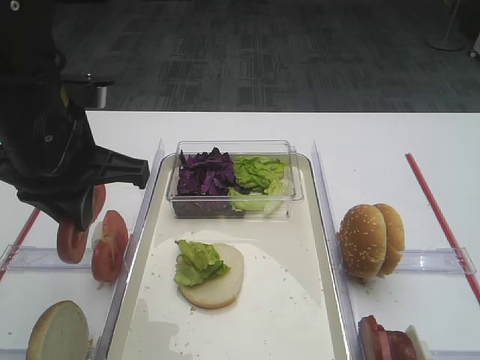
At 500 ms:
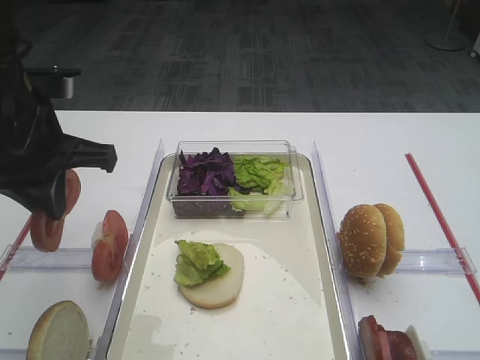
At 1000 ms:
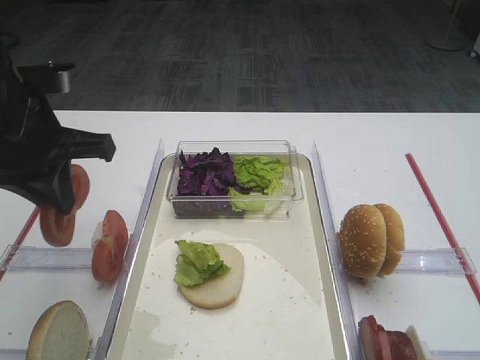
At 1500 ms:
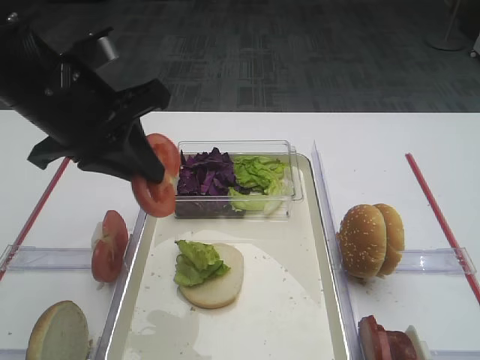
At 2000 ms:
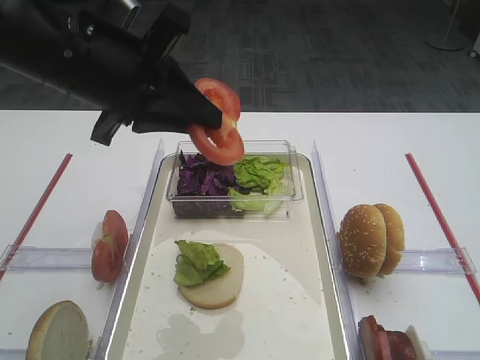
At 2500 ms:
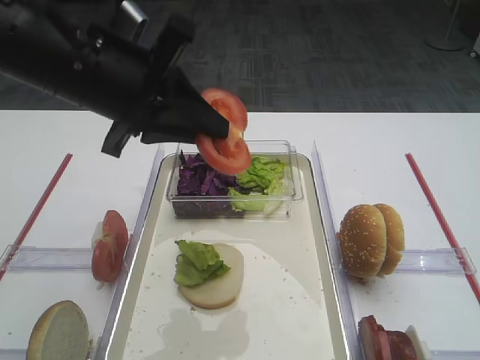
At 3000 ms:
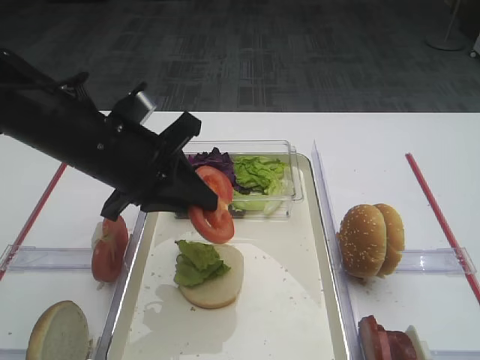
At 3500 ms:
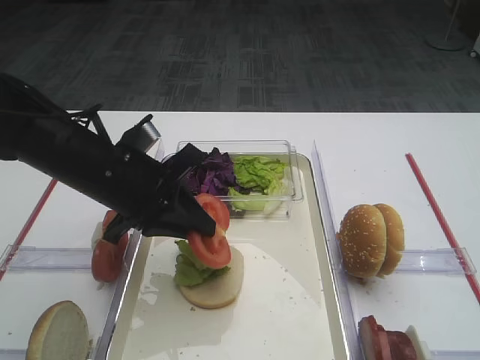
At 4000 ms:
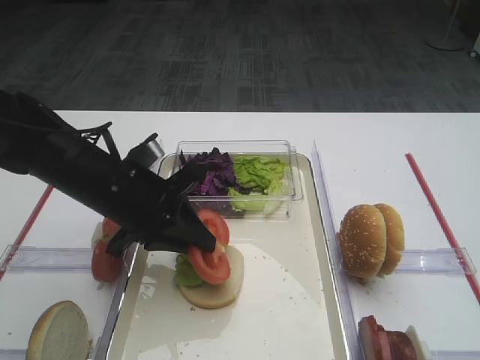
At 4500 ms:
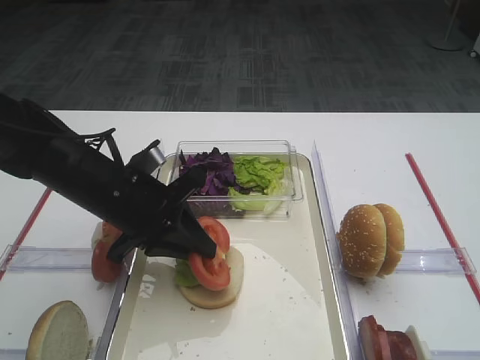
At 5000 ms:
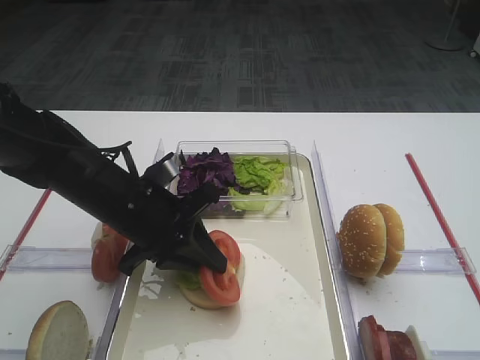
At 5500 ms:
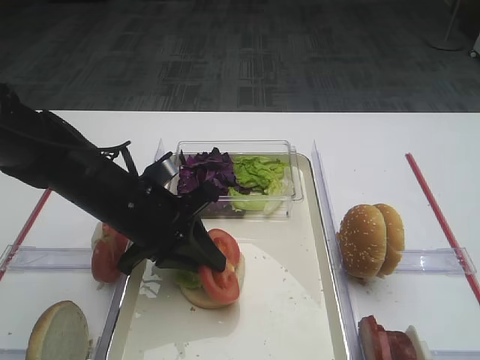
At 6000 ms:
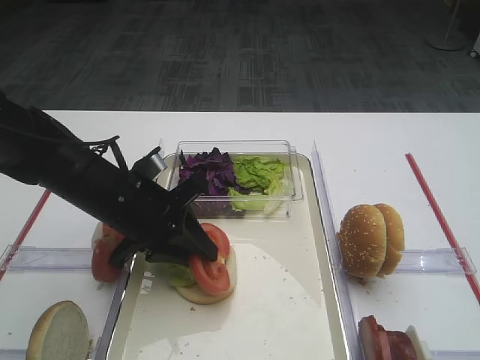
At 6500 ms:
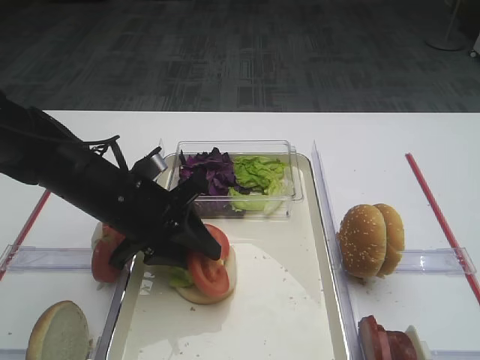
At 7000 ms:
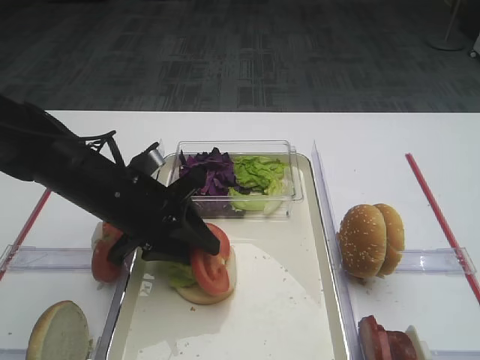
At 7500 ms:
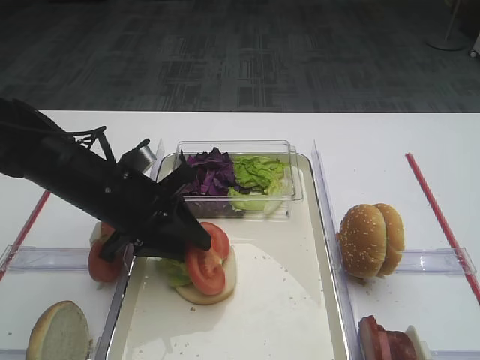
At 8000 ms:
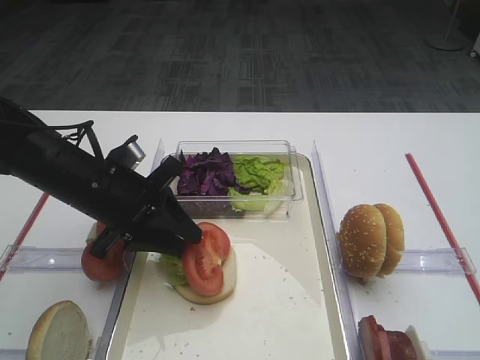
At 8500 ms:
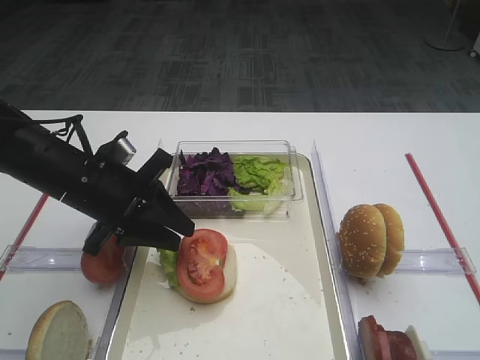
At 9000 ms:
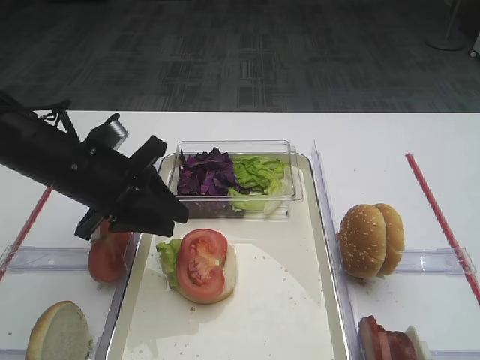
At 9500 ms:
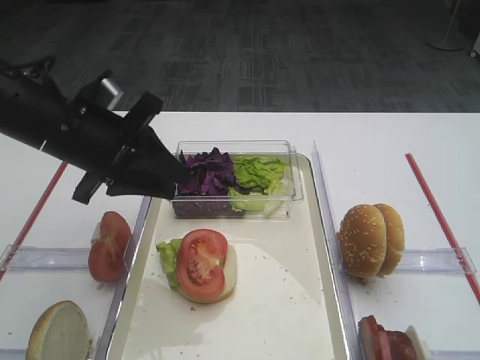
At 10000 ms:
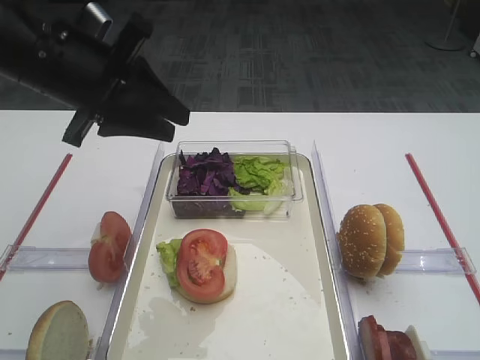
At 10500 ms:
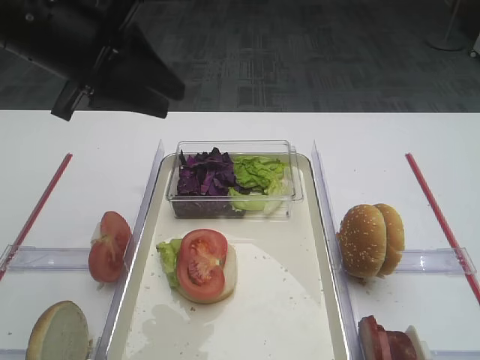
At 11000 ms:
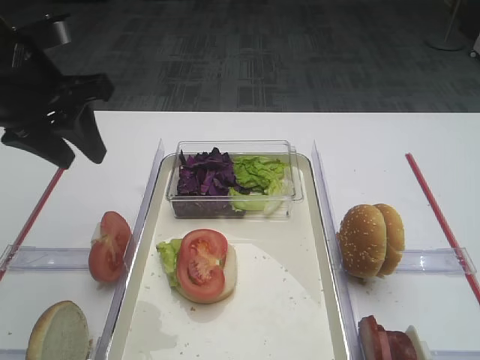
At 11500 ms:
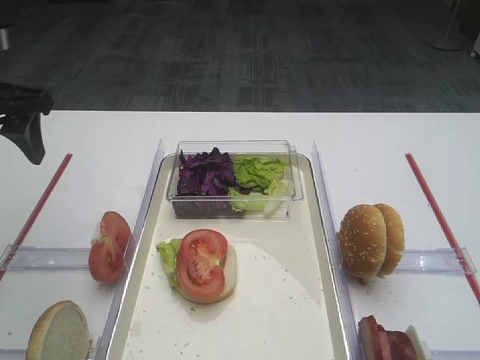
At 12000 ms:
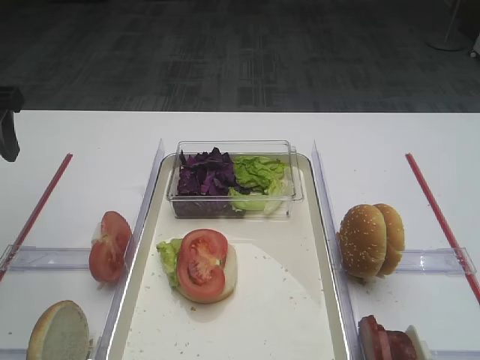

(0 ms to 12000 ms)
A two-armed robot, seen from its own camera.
Step, 0 ms - 8500 ms: Place the tomato slice on the lettuce leaf with the left gripper.
0 ms - 2000 ms: The left gripper changes place by approximately 5 cm.
2000 ms - 4000 ms: The left gripper shifts roughly 15 cm downward.
4000 ms - 8000 ms: The grippers stay close to where they were, moving slightly.
8000 ms - 10000 ms: The left gripper is displaced upward by approximately 15 cm.
10000 ms - 12000 ms: The left gripper goes roughly 15 cm to the left, and opens its fingers.

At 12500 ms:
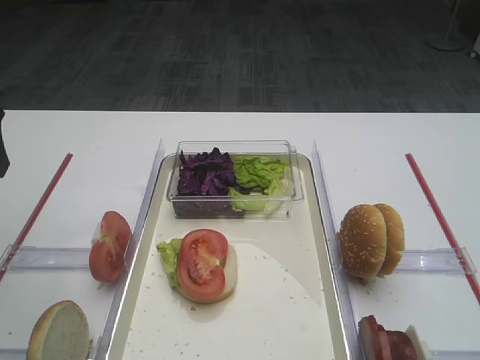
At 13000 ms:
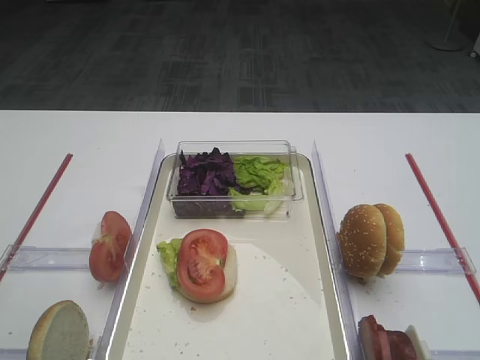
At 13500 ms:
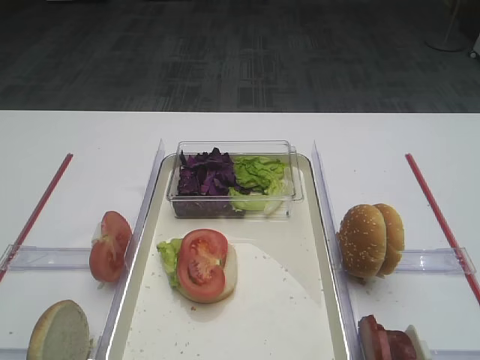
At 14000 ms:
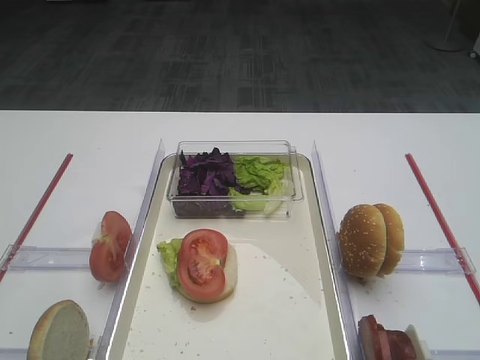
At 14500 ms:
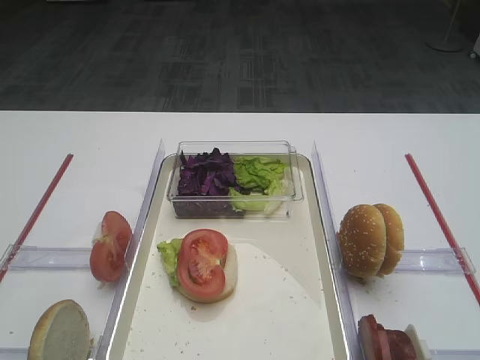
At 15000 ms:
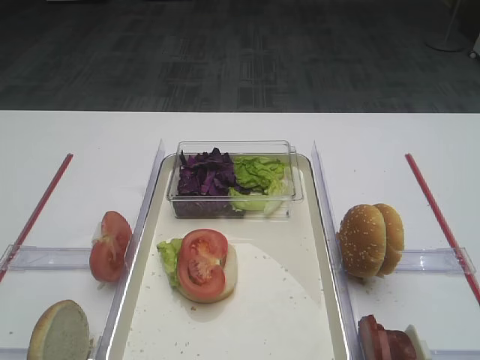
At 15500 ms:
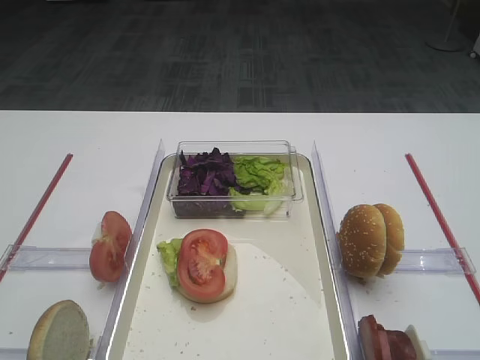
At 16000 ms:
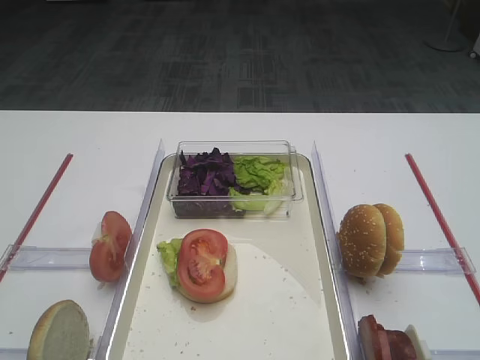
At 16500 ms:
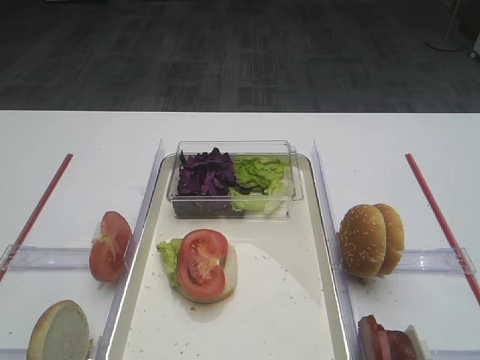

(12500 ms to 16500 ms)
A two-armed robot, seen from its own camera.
12500 ms - 14500 ms: The left gripper moves backward, approximately 30 cm.
14500 ms - 16500 ms: Both grippers stay about where they are.

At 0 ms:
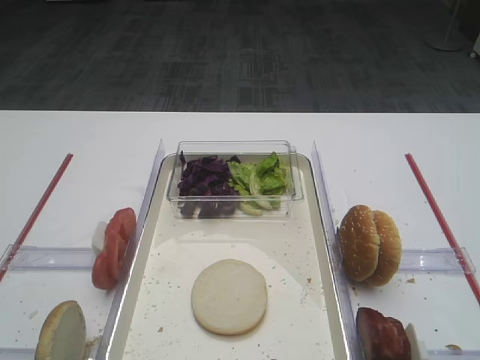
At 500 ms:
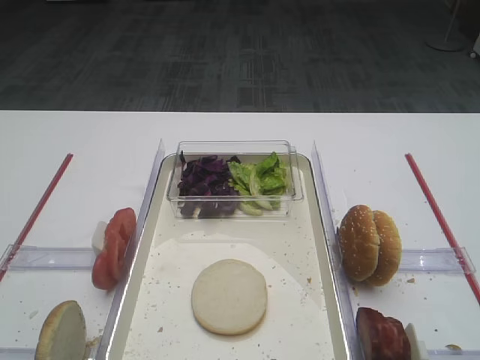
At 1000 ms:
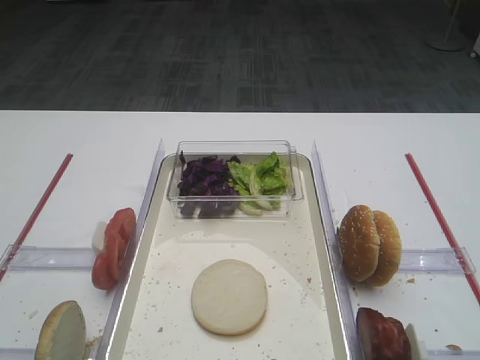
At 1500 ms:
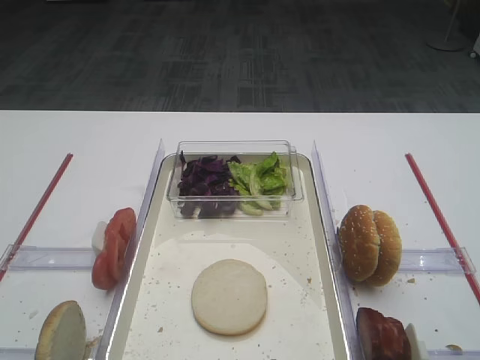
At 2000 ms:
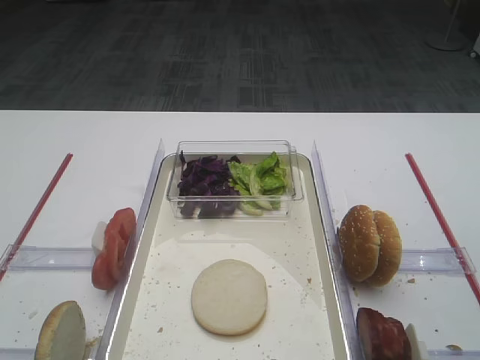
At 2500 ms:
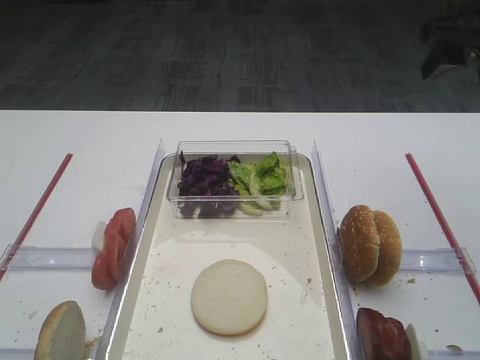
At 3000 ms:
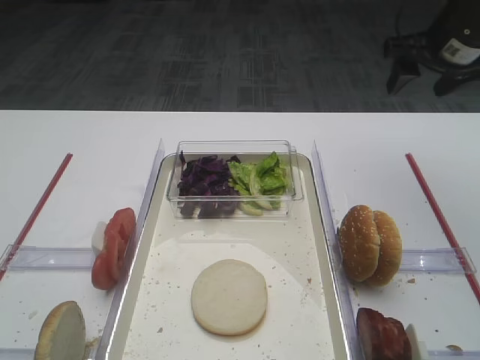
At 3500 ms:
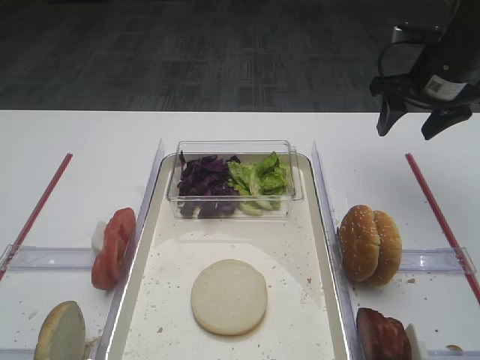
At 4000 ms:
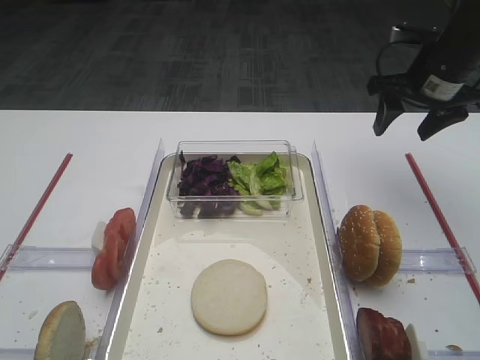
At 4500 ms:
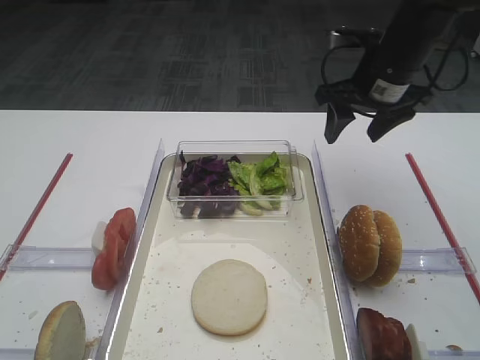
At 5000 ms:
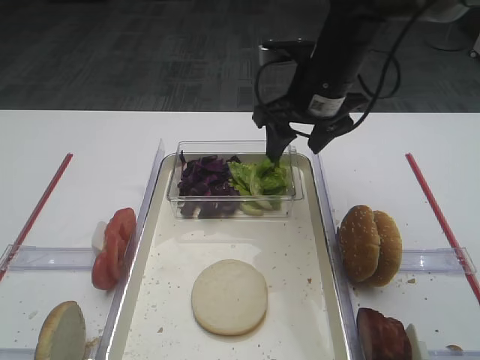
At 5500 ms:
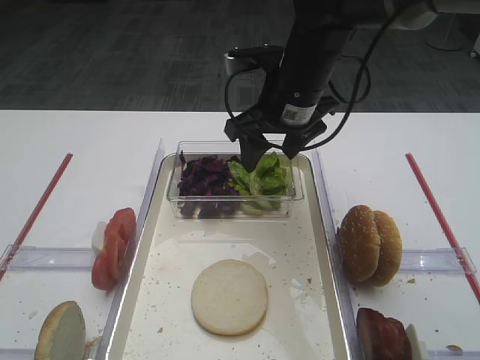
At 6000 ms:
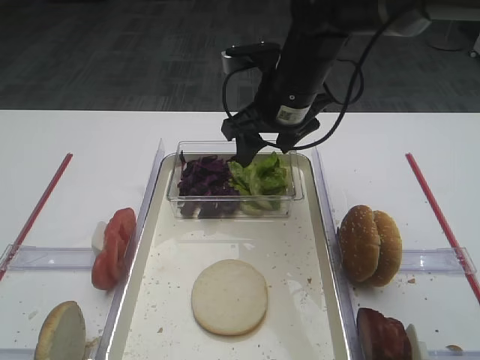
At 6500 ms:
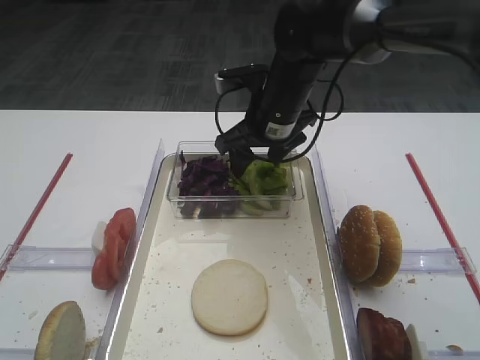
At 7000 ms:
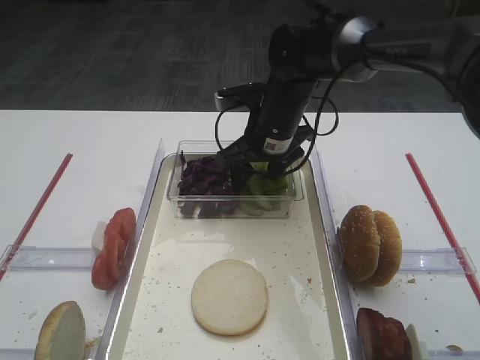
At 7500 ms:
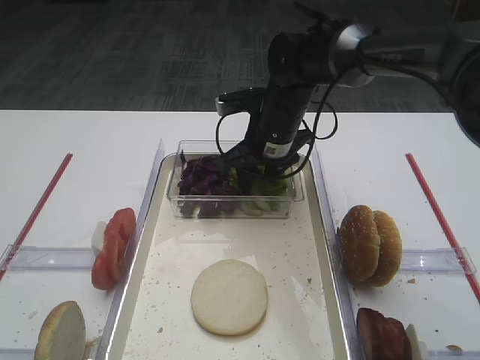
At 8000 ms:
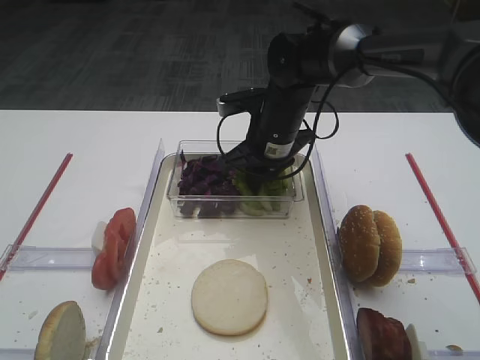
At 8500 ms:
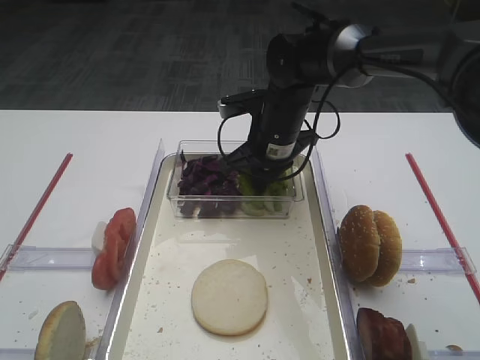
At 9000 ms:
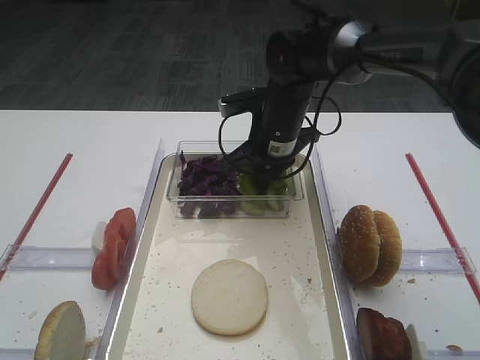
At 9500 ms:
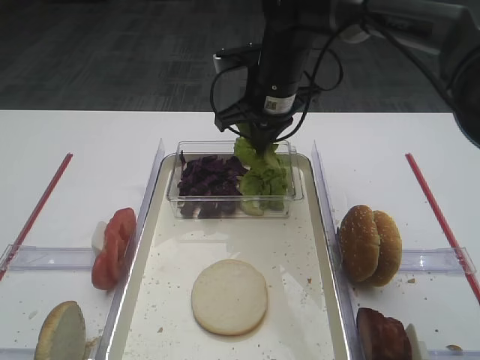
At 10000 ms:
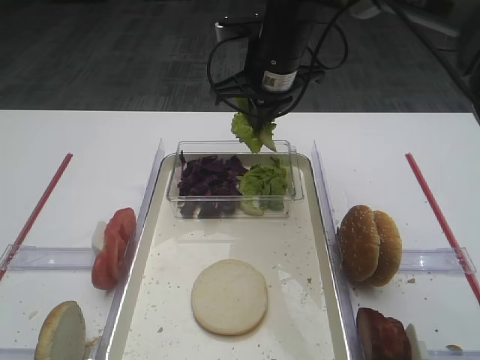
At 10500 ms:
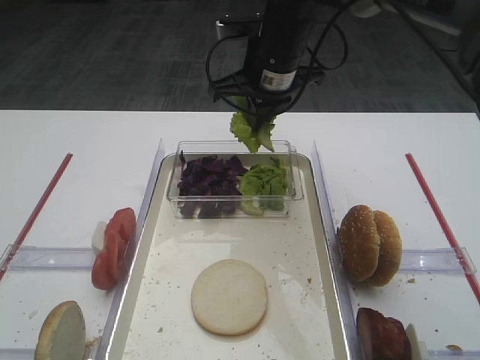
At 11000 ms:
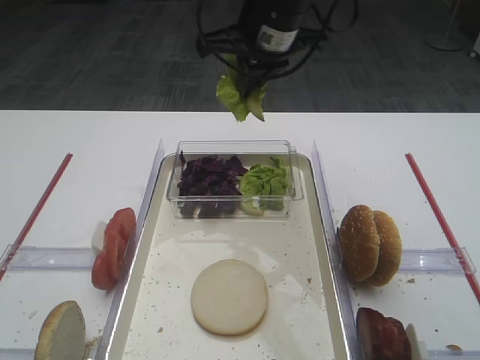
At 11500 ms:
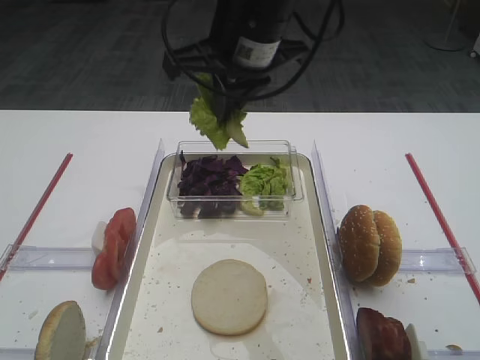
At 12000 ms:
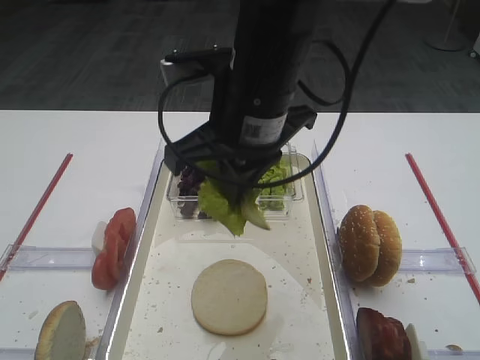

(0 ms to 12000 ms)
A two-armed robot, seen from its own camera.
Step, 0 ms - 9500 ms: Pick up the lettuce leaf with the right gripper.
2000 ms - 4000 ms: The right gripper goes about 25 cm forward and downward.
4000 ms - 6000 ms: The right gripper shifts about 20 cm to the left.
6000 ms - 8000 ms: The right gripper moves downward, roughly 5 cm, and closes.
8000 ms - 10000 ms: The right gripper is displaced upward by roughly 10 cm.
10000 ms - 12000 ms: The right gripper shifts roughly 15 cm backward.
